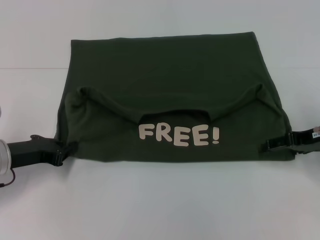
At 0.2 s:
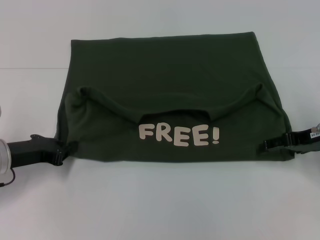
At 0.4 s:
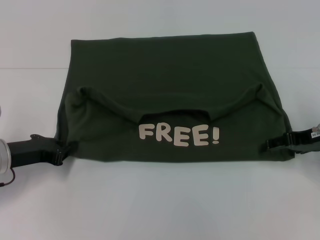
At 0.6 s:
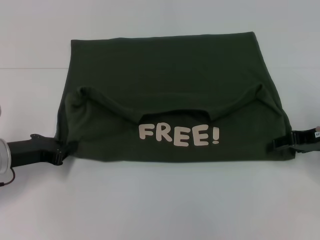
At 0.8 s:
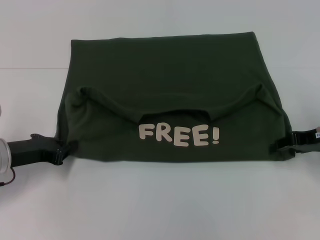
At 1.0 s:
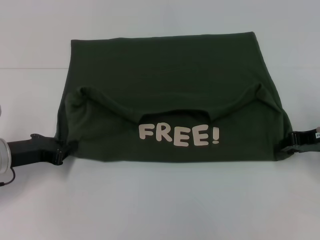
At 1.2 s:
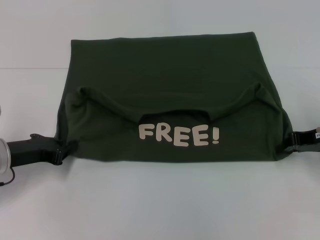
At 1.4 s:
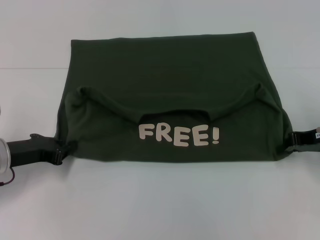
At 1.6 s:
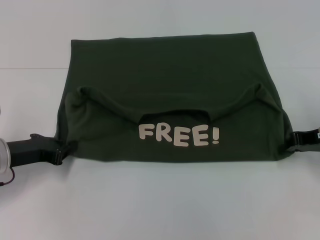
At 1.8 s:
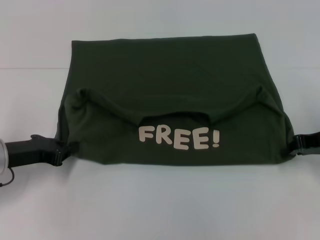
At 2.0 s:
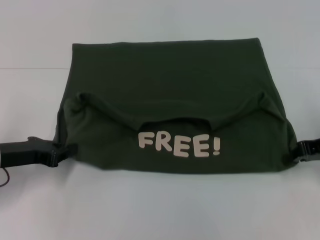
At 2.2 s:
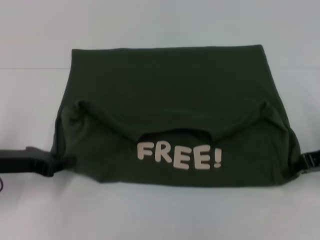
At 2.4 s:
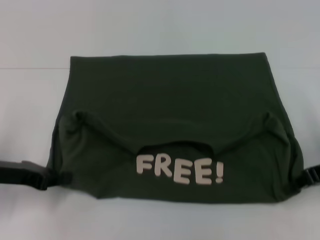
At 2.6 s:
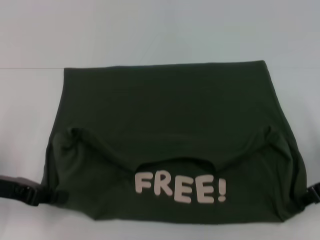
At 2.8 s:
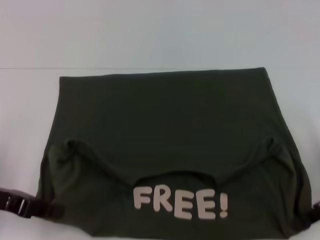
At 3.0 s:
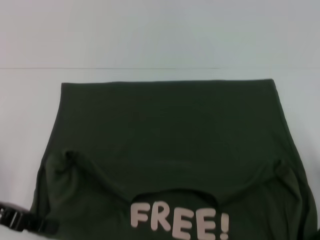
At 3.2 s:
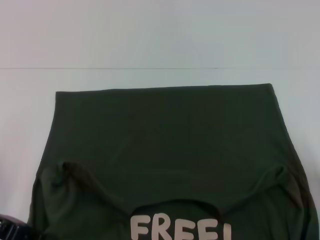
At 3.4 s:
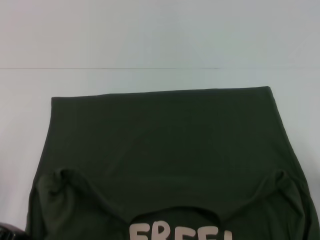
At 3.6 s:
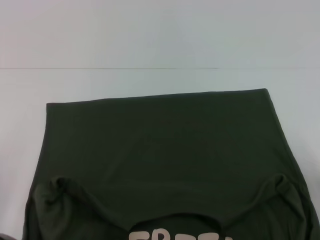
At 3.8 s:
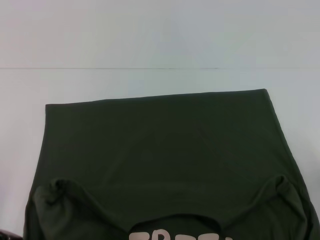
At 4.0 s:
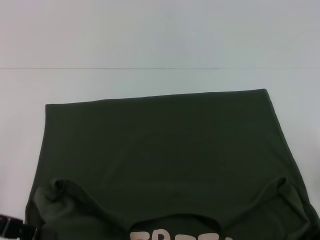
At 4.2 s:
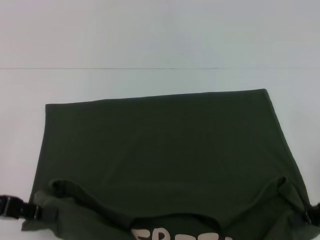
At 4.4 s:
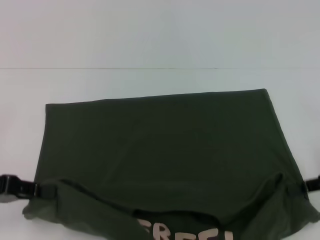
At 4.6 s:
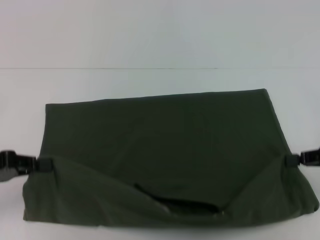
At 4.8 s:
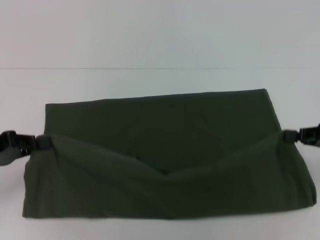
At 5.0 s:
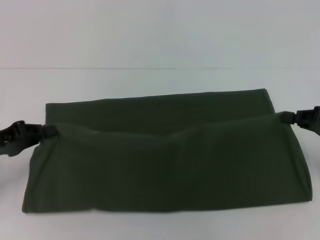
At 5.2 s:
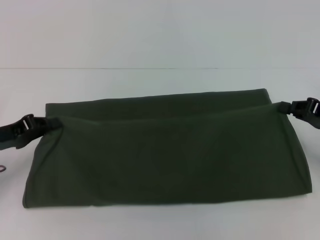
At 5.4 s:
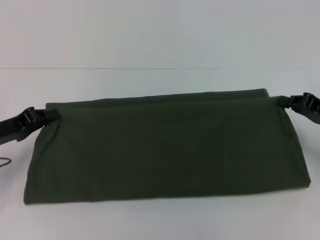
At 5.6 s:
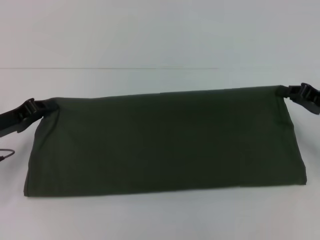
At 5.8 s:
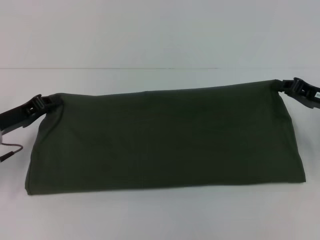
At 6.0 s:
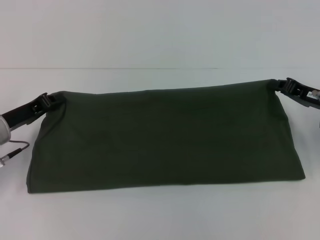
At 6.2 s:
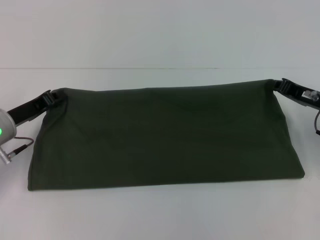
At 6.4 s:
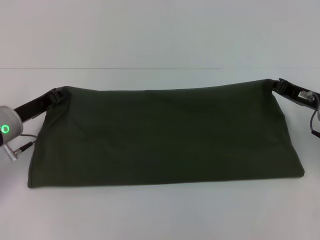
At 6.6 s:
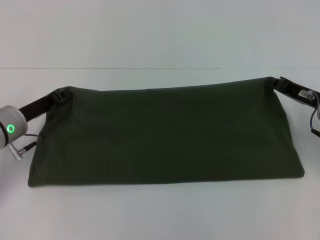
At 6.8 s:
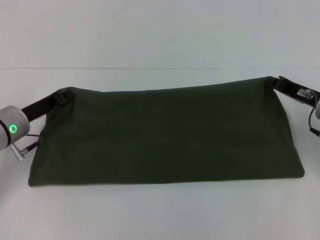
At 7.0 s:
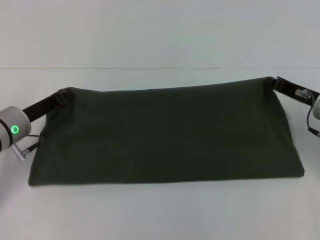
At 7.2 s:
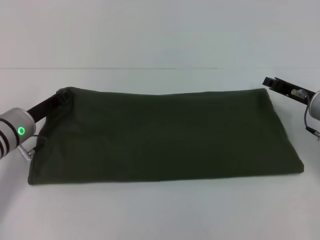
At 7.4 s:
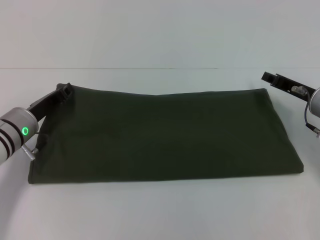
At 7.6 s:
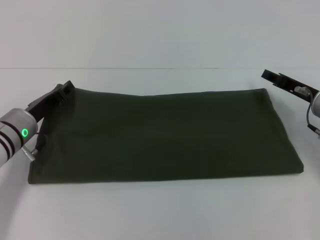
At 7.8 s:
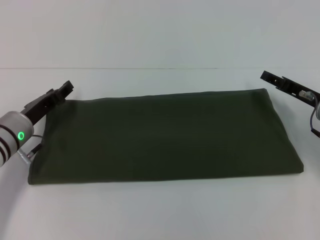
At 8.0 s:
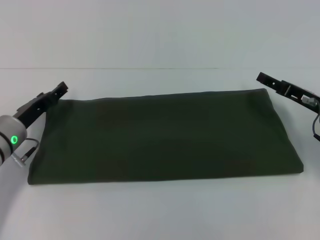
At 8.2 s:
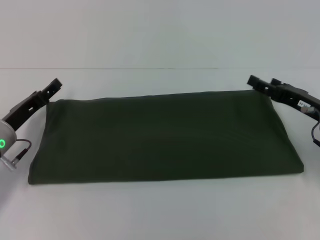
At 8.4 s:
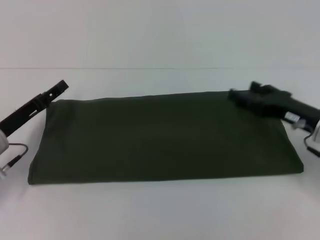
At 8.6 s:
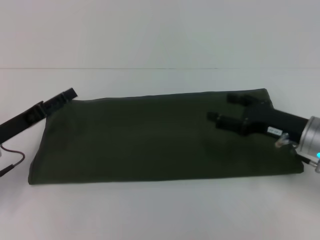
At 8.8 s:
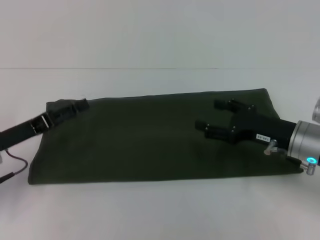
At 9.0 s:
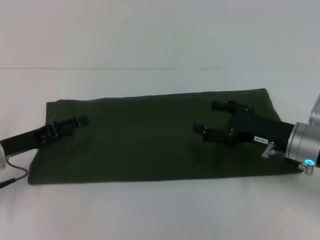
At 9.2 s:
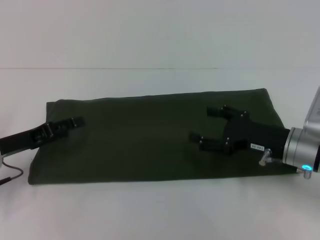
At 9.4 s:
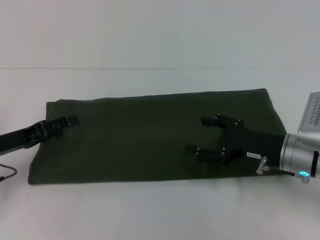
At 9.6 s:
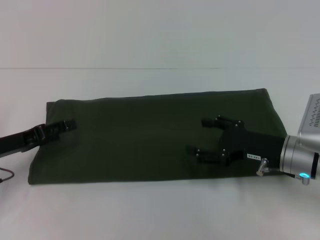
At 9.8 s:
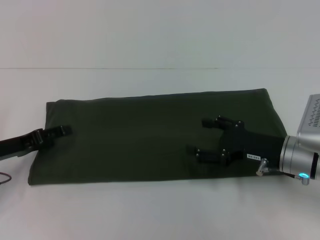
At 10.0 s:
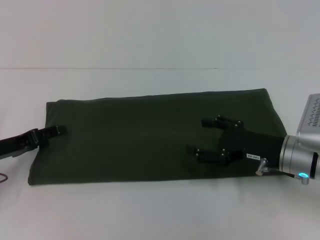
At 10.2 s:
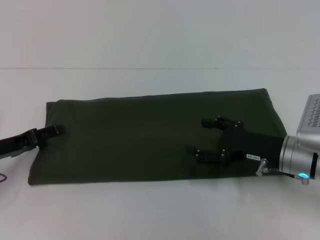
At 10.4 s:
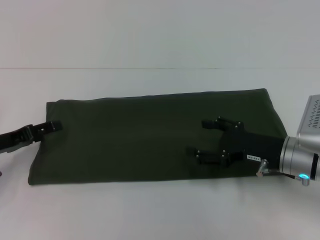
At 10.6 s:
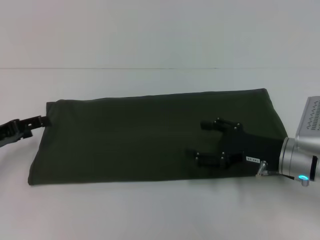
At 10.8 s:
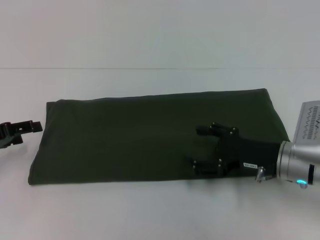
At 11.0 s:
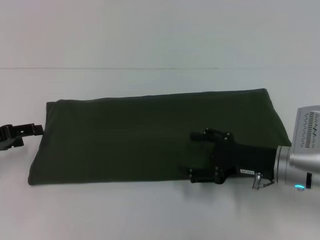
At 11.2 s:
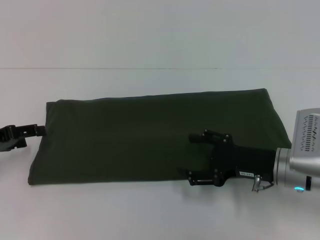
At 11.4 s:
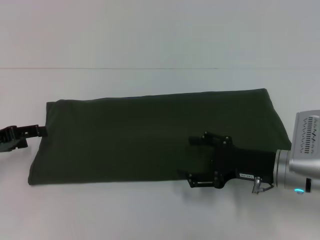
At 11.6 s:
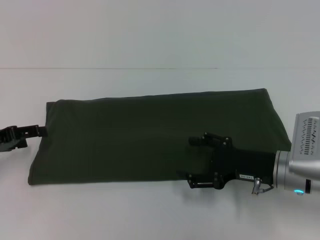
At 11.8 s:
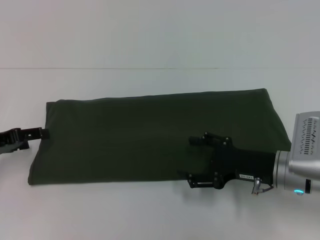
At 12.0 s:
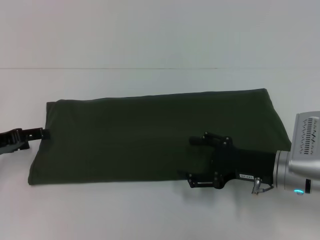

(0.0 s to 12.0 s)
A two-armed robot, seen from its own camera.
Step, 0.0 s - 4.0 s: Pull the clothes with your left hand.
Step, 0.0 s - 4.0 s: Pull the clothes with your right hand.
Step, 4.2 s - 7.6 s: Fold the clothes with your right hand.
1.6 s - 3.0 s: Both grippers move backward, about 5 cm.
4.4 s - 6.0 s: The right gripper moves forward, approximately 10 cm. Meanwhile the left gripper travels forward and downward by some 10 cm.
6.0 s - 7.6 s: The right gripper opens, while the left gripper shifts by some 5 cm.
7.6 s - 9.0 s: The right gripper heads backward and to the left, covering roughly 10 cm, and opens. The left gripper shifts some 5 cm backward, and opens up.
9.0 s - 10.4 s: The grippers stay close to where they were, moving slightly.
10.4 s - 12.0 s: The grippers move only a little.

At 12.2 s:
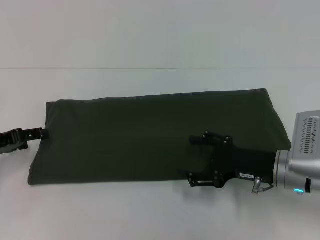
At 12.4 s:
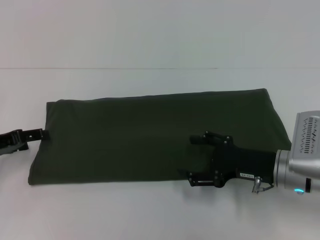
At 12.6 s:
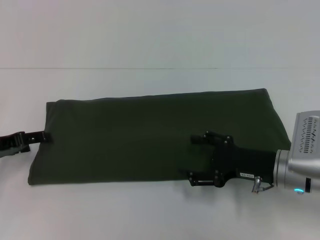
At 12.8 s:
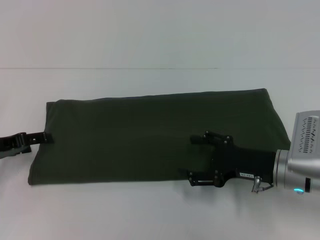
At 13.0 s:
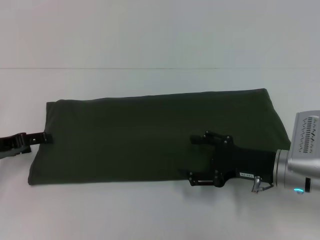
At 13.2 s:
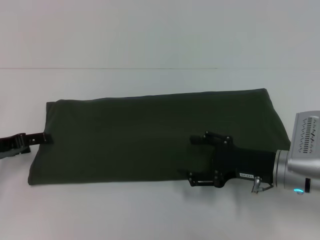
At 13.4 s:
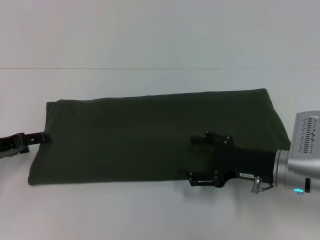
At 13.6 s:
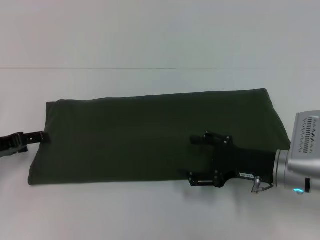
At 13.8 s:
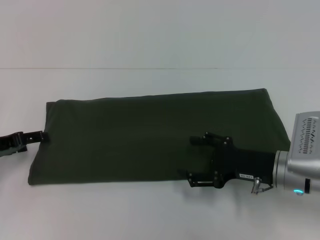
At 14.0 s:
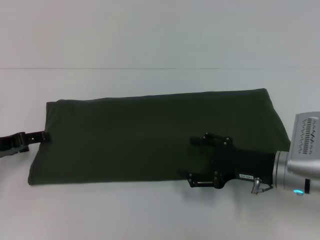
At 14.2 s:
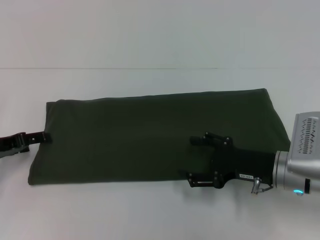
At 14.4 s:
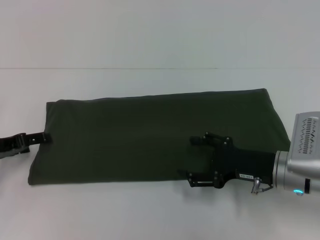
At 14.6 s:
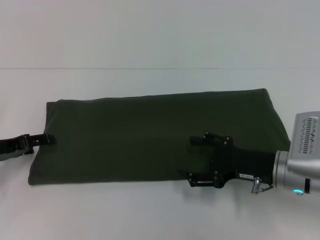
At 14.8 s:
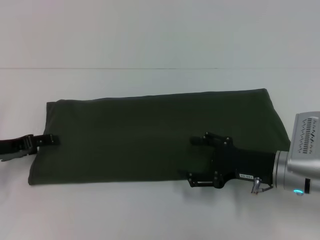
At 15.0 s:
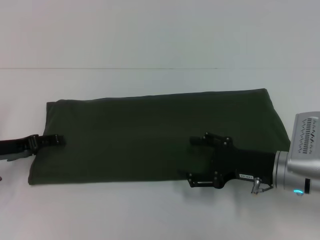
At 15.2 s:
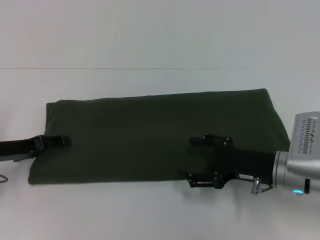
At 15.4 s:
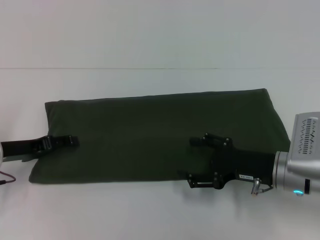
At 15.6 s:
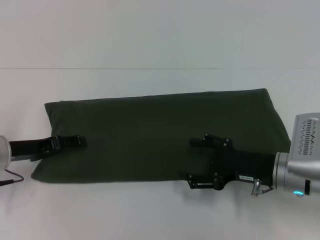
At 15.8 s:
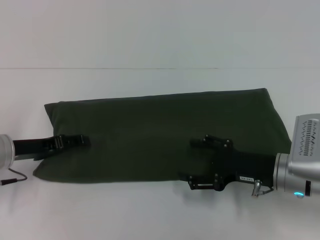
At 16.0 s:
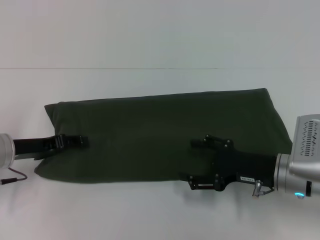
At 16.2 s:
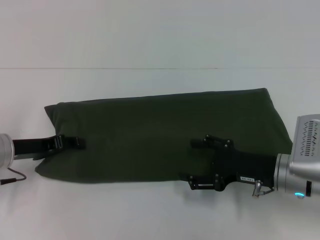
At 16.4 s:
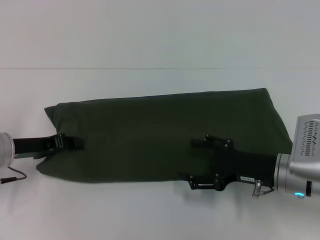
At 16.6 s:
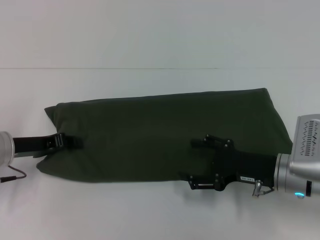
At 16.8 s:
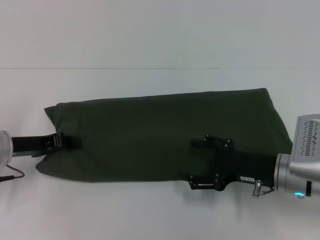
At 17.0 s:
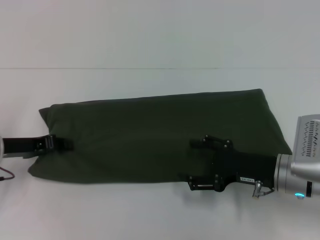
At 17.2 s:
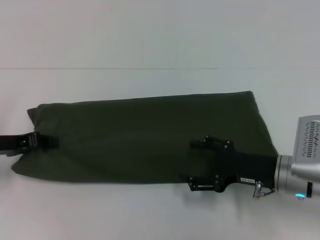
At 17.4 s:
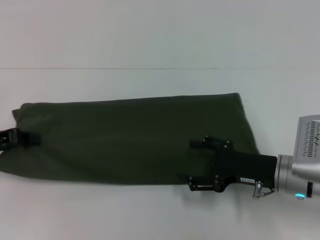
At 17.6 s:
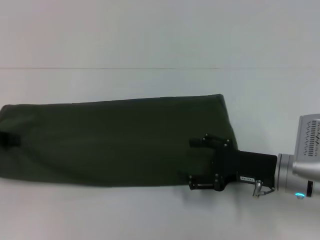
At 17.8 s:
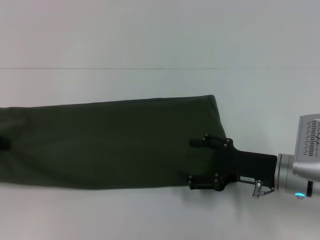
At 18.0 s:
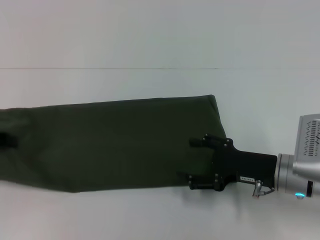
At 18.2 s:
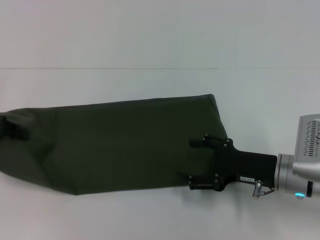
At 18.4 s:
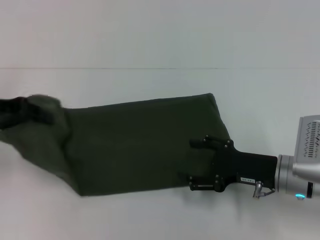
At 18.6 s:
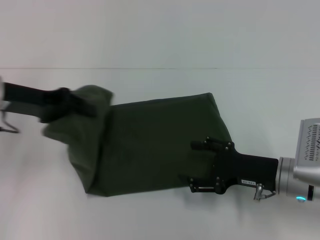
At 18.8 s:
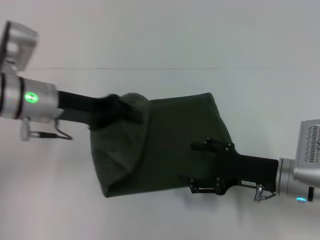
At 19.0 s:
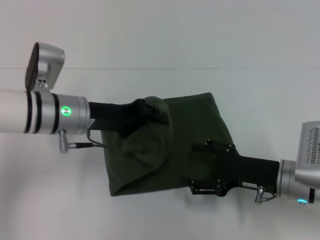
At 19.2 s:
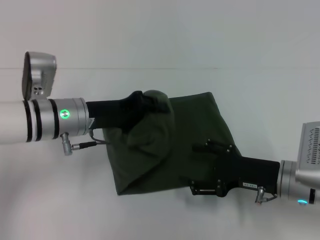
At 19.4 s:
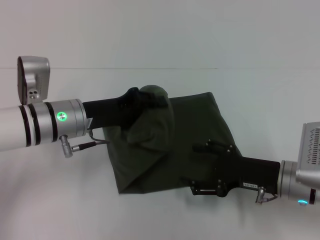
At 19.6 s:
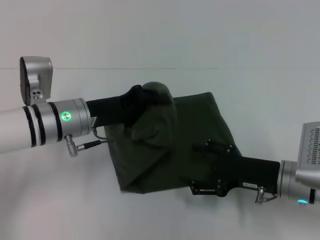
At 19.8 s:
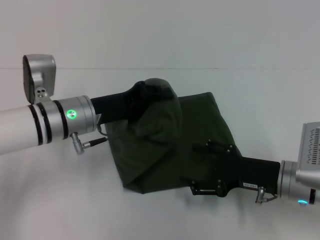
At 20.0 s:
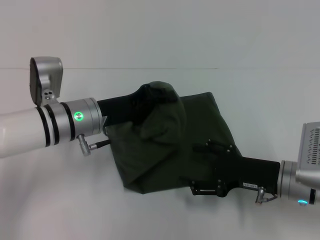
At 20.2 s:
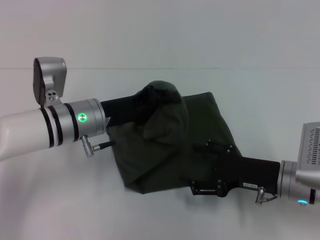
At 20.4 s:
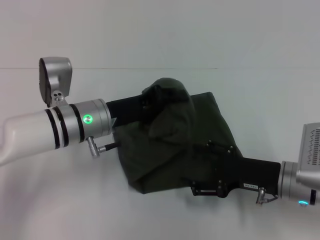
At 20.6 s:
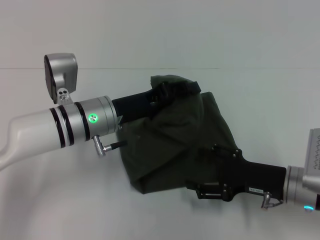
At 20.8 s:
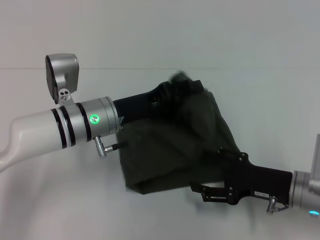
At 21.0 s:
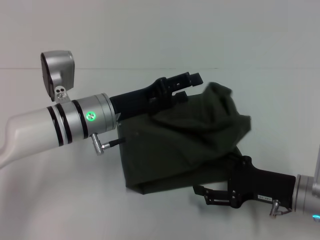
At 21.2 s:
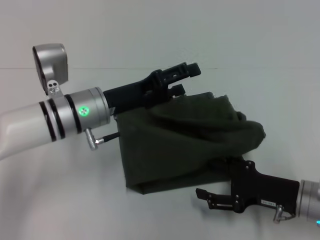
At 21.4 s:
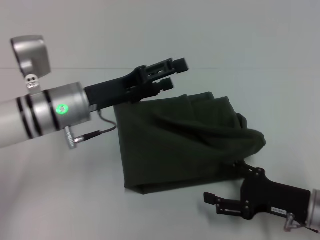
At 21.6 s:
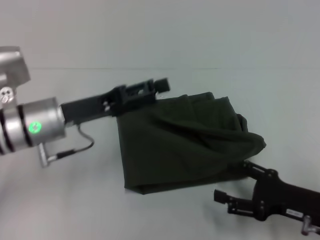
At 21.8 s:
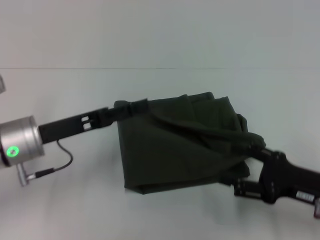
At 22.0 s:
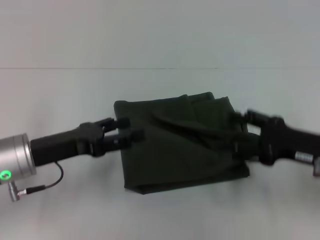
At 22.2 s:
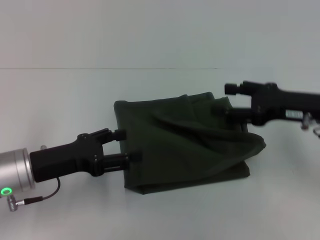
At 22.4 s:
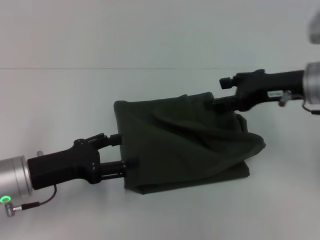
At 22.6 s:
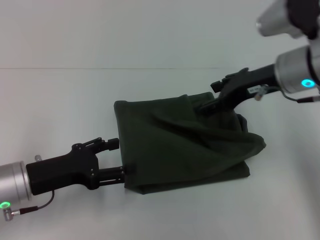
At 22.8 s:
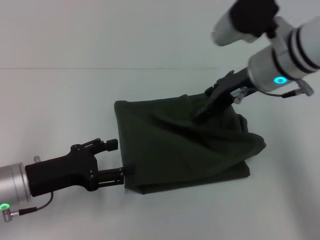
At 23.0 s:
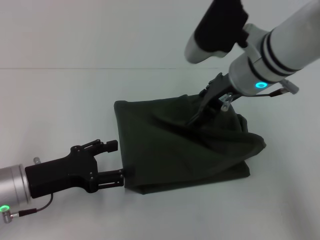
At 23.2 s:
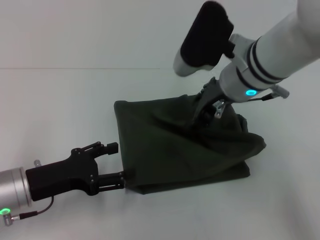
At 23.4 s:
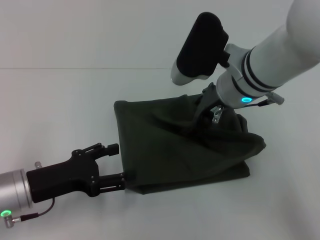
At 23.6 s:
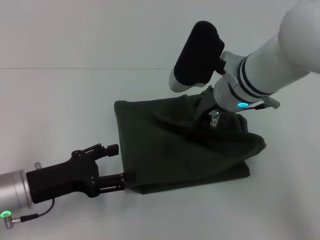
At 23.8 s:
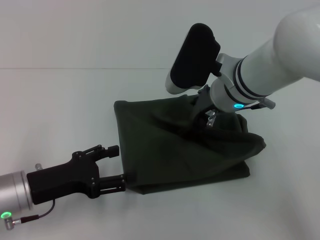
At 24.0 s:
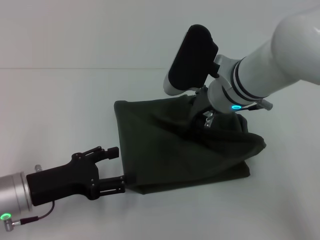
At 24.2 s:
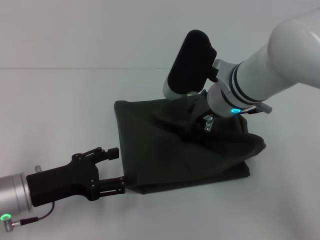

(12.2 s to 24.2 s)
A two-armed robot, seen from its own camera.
Step, 12.2 s - 21.2 s: Fold the clothes with your left hand.
12.2 s - 13.8 s: Both grippers stay about where they are.
13.8 s - 15.2 s: The grippers make only small movements.
15.2 s - 16.6 s: The left gripper closes its fingers.
16.6 s - 18.2 s: The left gripper travels to the left and upward by approximately 10 cm.
18.2 s - 19.8 s: The left gripper goes roughly 20 cm to the right.
19.8 s - 21.2 s: The left gripper opens up.
21.2 s - 22.6 s: The left gripper is displaced to the left and backward by roughly 15 cm. The right gripper goes about 20 cm upward and forward.
22.6 s - 24.2 s: The right gripper travels to the left by roughly 10 cm.
